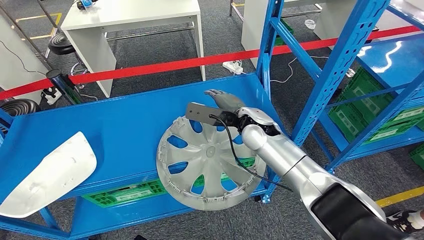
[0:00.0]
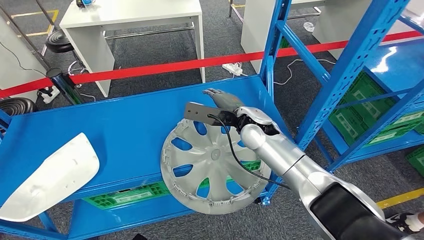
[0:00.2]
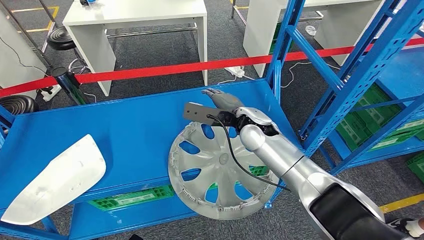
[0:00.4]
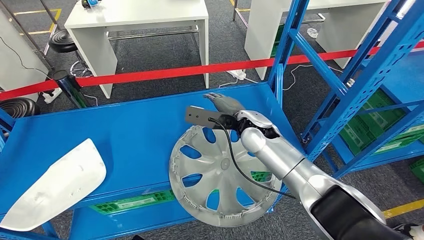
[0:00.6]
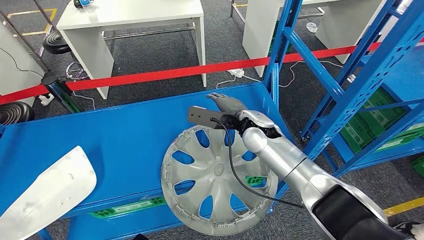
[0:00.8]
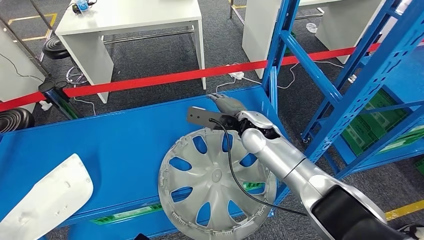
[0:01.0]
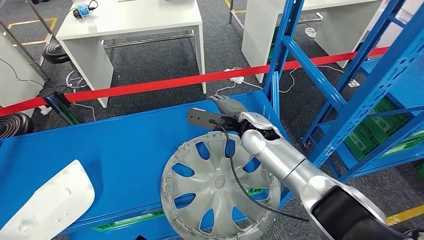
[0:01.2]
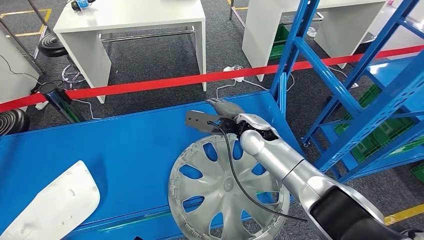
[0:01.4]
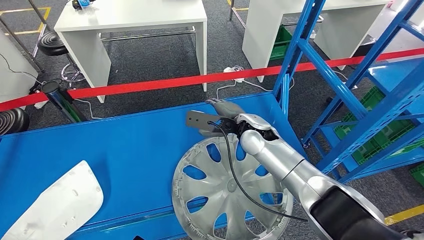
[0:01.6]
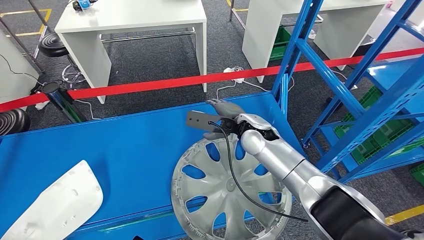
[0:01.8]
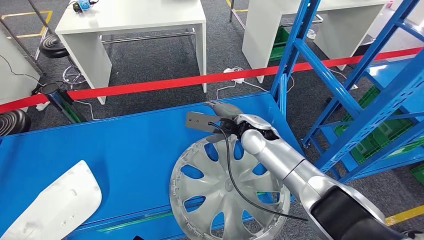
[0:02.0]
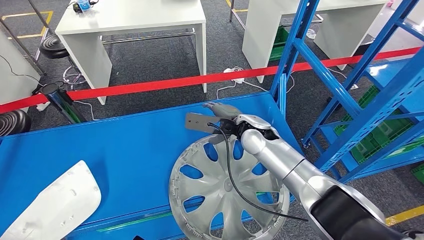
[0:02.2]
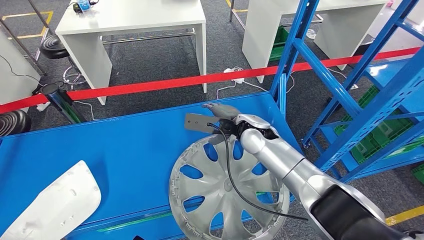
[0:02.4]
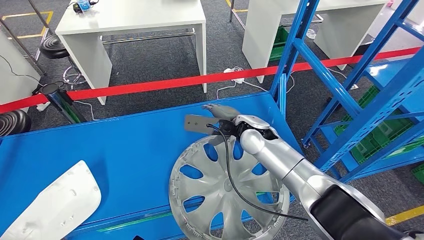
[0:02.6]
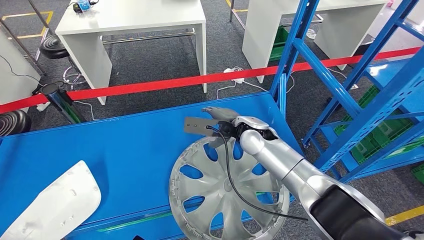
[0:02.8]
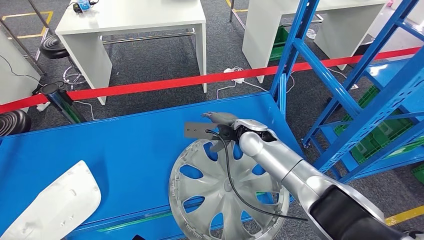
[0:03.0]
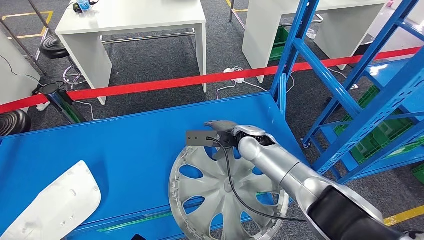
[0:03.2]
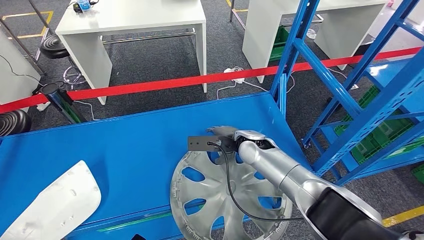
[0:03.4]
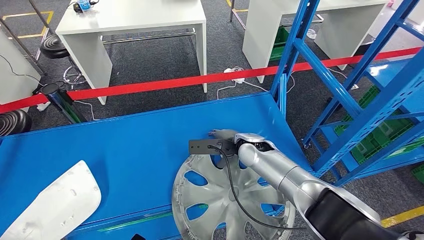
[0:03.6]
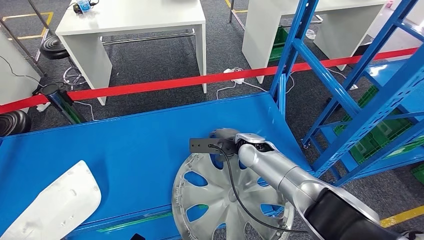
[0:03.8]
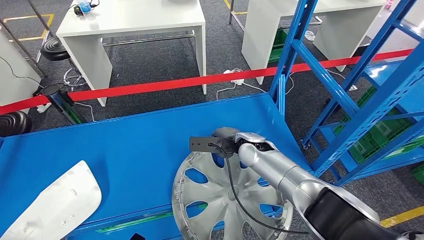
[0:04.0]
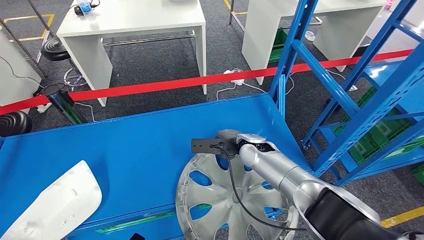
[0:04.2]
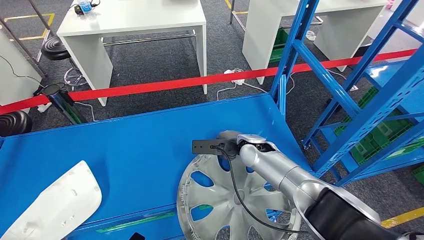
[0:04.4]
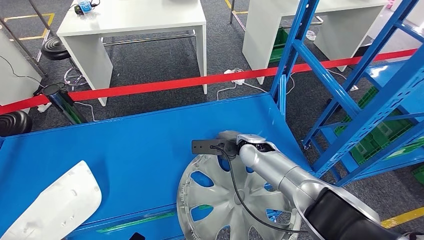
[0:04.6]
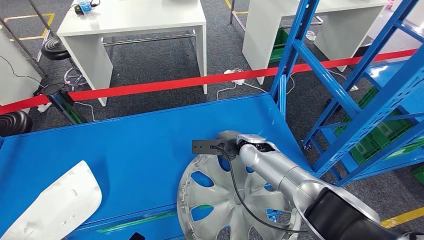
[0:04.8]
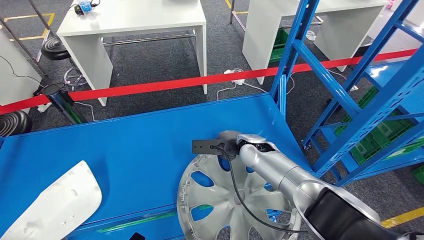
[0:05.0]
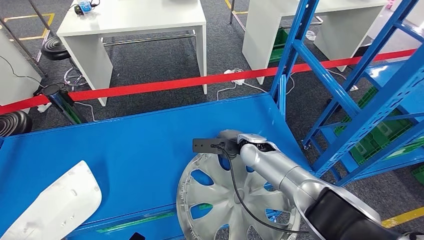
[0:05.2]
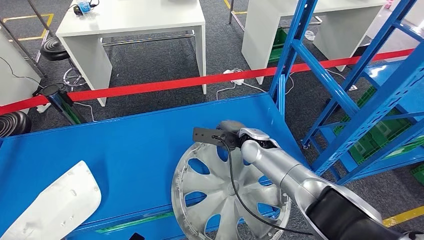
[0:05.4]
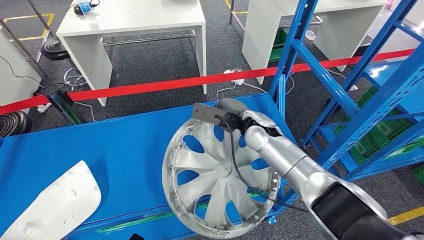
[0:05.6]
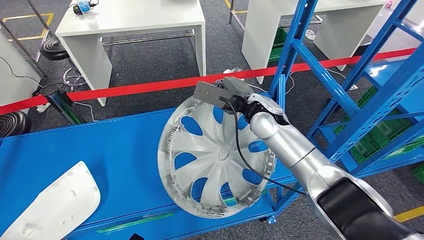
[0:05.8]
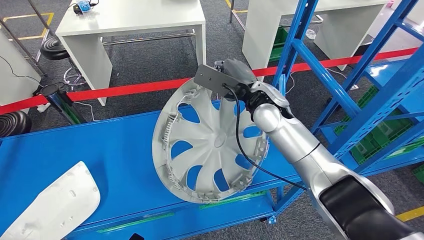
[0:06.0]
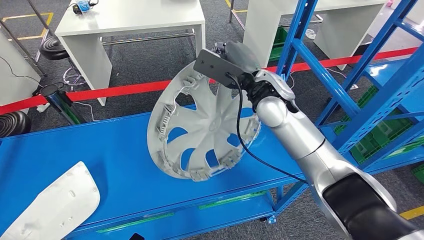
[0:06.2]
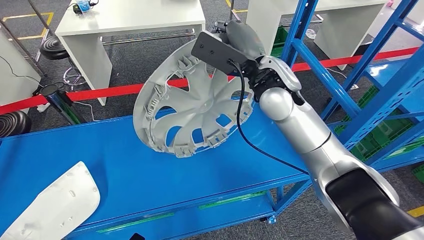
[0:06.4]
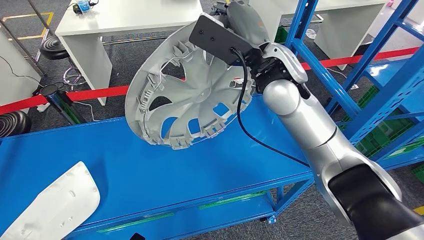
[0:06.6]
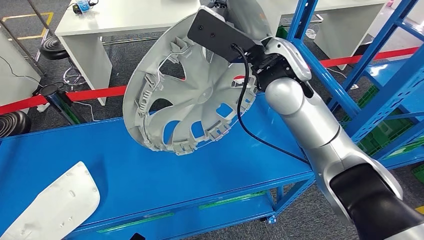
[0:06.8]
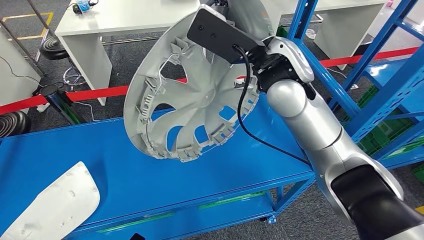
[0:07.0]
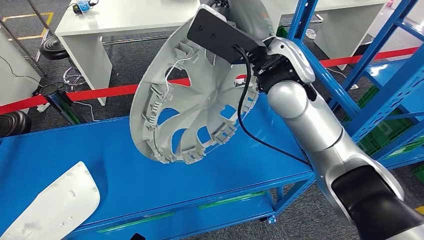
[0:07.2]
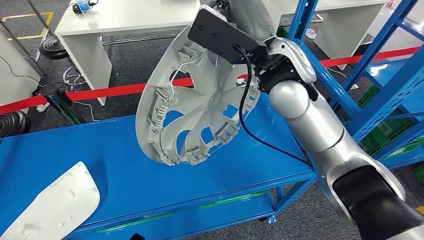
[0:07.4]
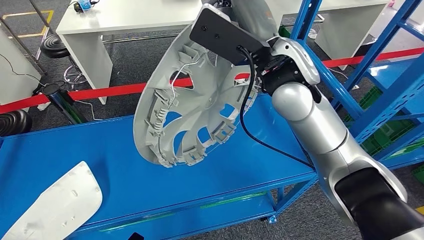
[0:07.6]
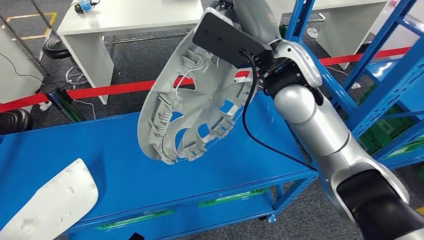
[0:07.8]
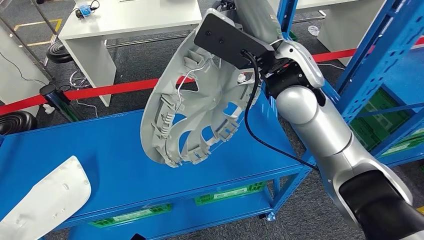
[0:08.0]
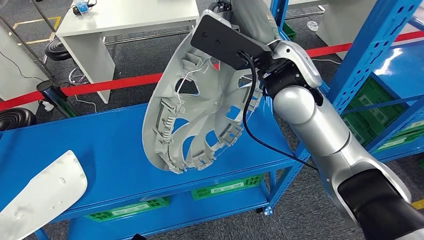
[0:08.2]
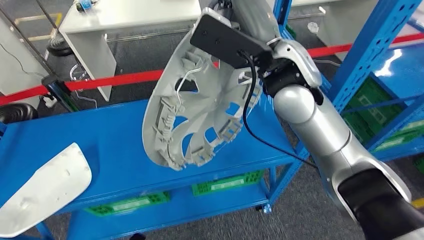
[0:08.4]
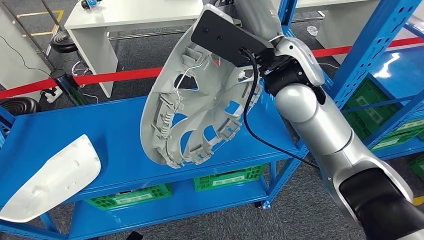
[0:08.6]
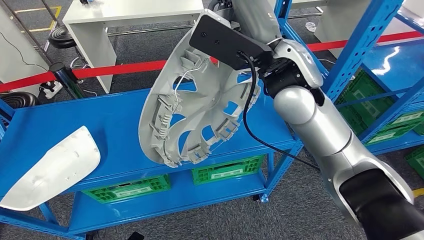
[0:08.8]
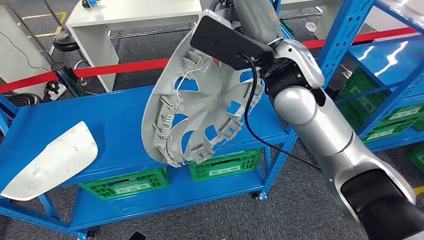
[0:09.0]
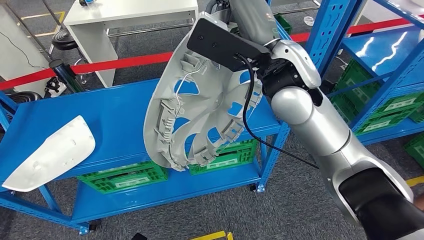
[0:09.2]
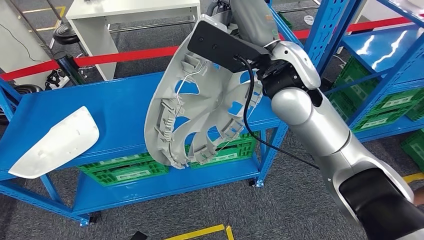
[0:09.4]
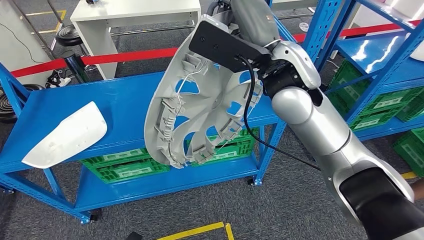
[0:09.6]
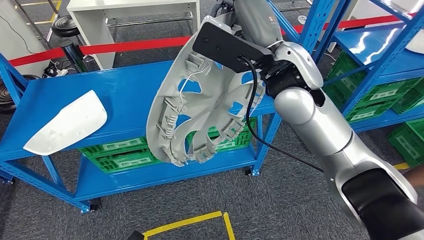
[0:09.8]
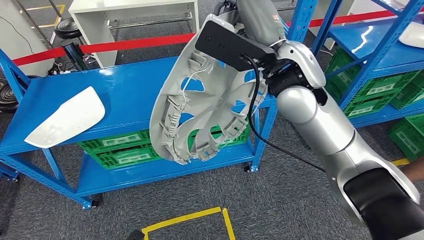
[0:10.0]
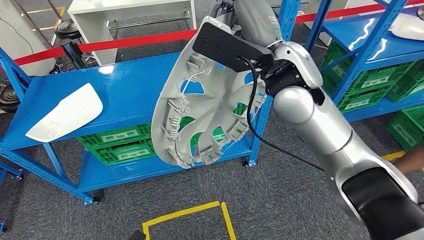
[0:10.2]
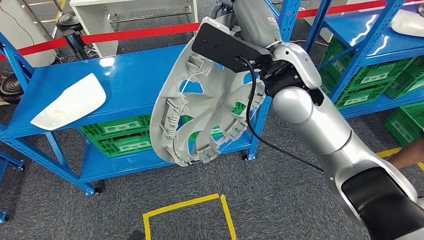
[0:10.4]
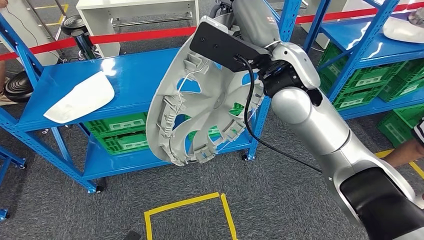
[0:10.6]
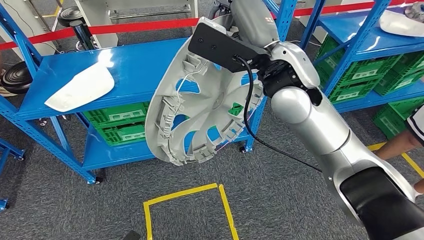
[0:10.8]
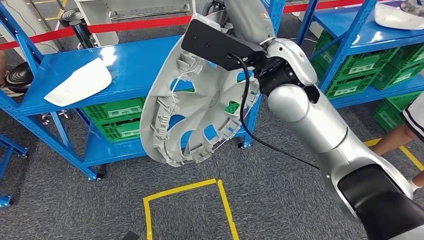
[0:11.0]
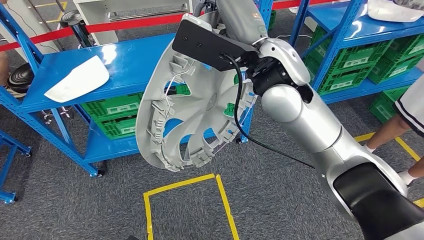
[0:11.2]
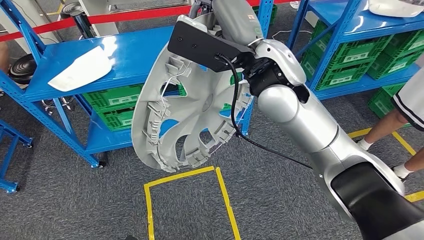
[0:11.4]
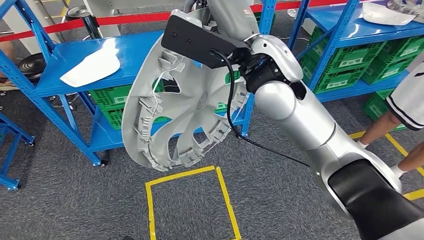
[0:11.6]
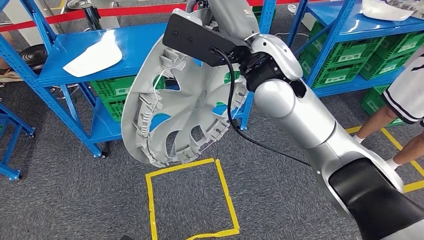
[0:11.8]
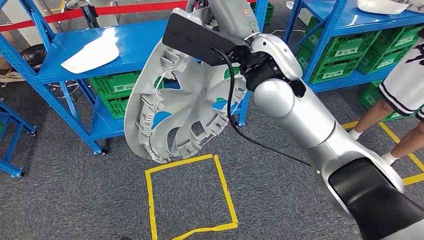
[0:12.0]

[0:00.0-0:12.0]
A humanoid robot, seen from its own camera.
Step, 0:00.0 to 0:06.6: Pick up the small parts from the shelf.
0:01.6 to 0:03.0: There are only small adjustments of the hands.
0:03.0 to 0:04.4: The right hand is displaced downward by about 5 cm.

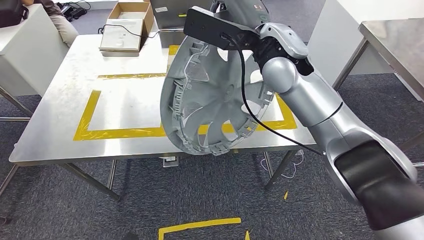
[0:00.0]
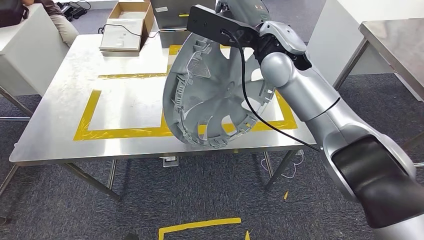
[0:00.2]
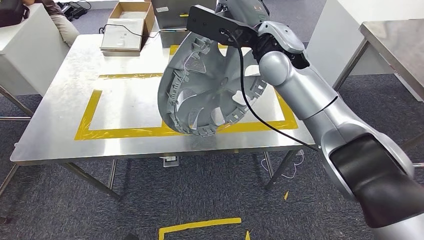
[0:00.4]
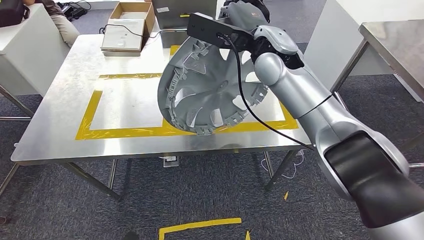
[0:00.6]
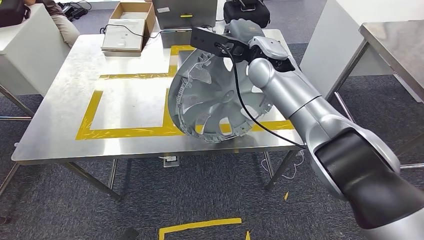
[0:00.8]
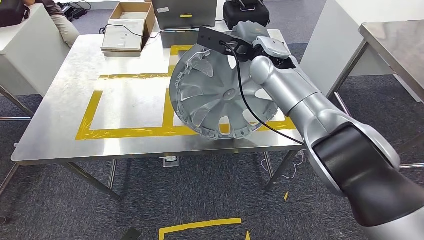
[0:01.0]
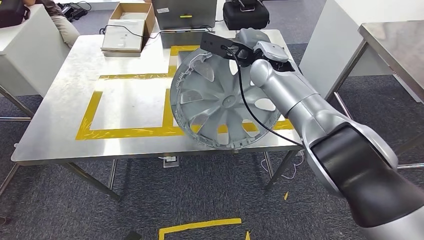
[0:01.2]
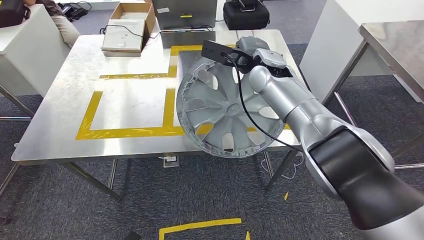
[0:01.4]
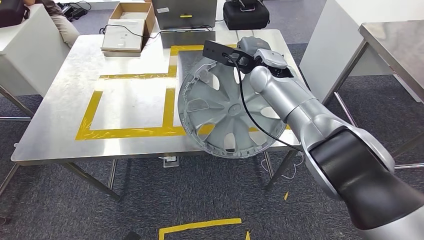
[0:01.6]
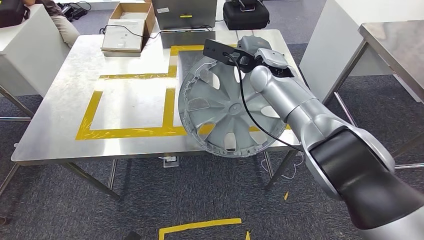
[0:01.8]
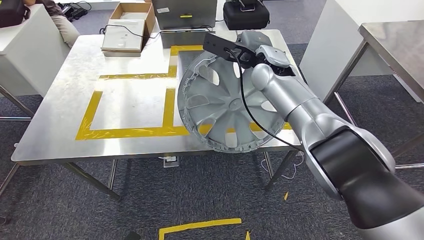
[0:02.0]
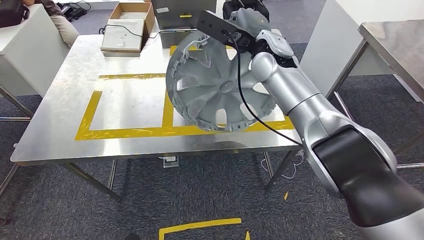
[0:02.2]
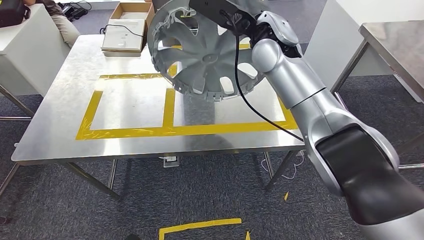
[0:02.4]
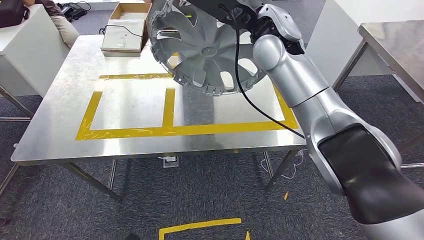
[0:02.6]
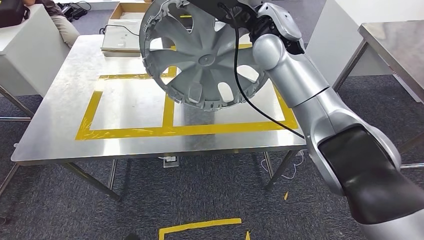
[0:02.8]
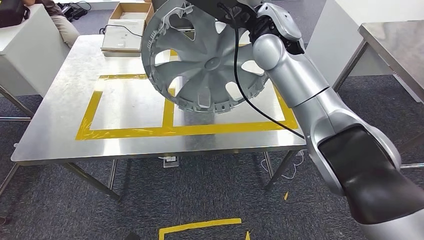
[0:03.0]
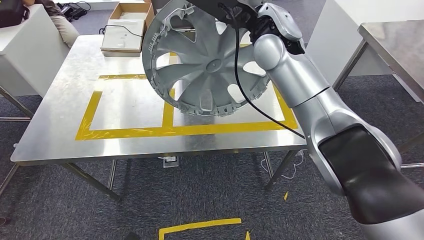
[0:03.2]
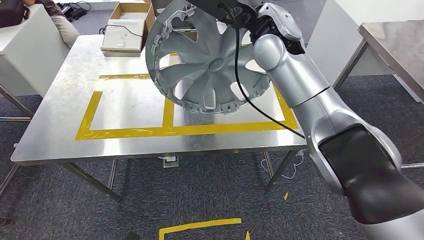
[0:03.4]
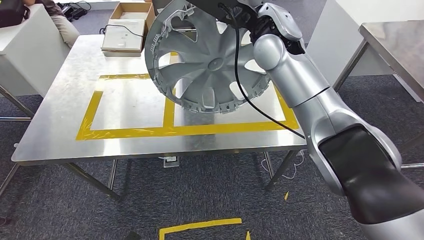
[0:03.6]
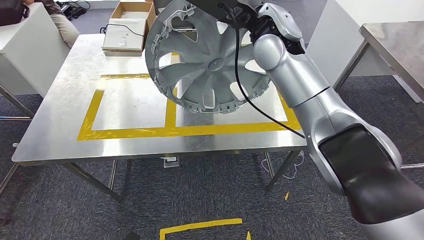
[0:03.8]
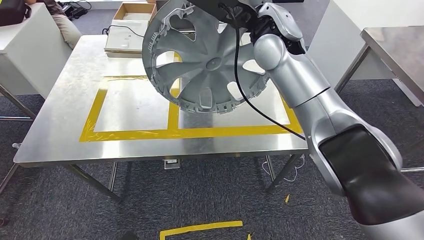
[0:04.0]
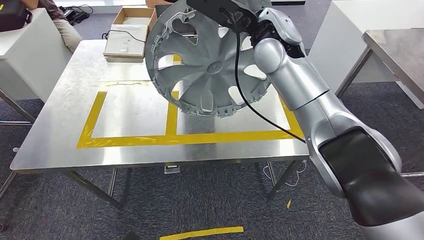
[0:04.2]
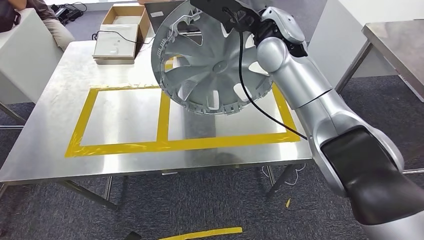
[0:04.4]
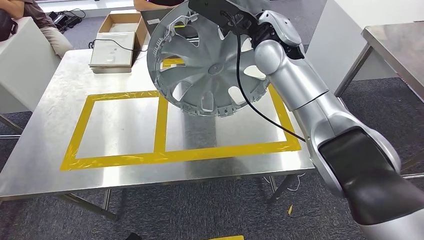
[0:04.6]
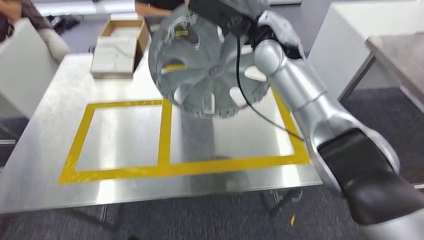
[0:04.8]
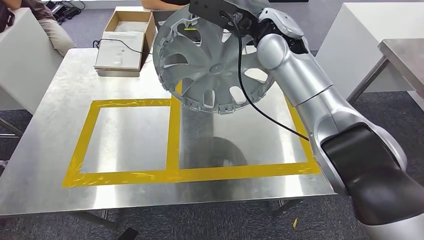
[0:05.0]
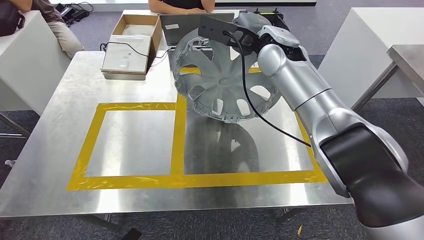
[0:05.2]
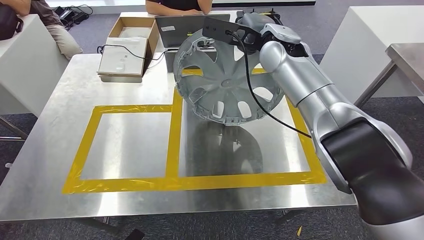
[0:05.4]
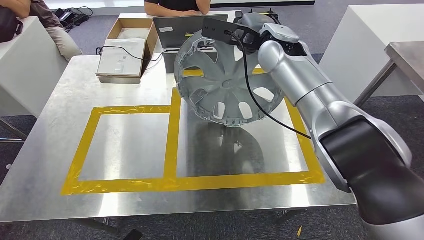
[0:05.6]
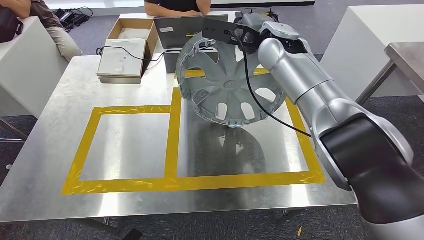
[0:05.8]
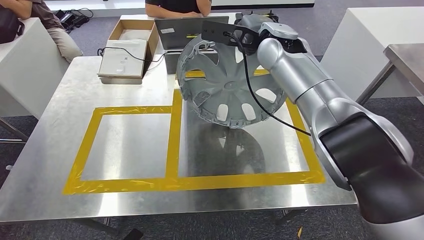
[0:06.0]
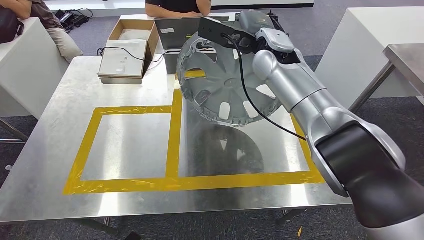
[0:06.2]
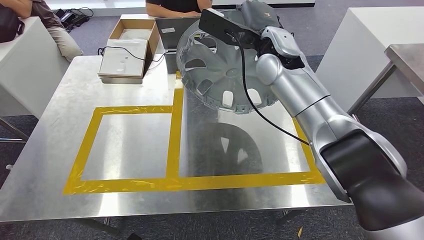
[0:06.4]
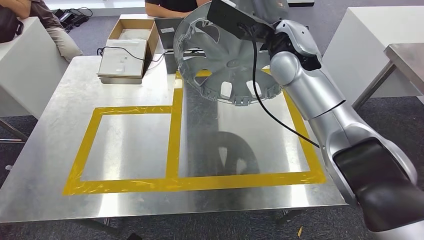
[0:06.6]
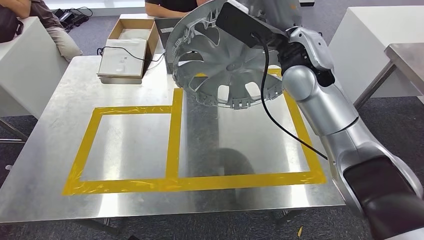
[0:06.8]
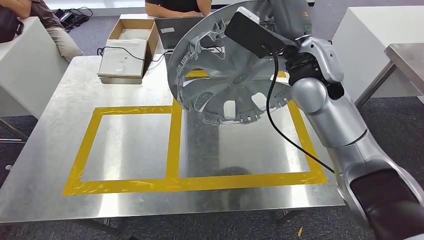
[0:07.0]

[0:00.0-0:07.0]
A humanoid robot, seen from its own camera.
0:01.4 to 0:02.8: The right hand is displaced upward by about 10 cm.
